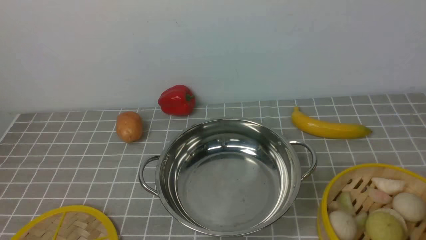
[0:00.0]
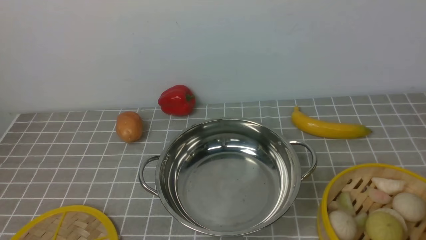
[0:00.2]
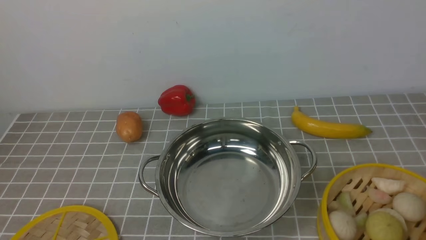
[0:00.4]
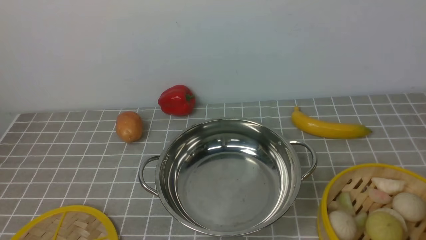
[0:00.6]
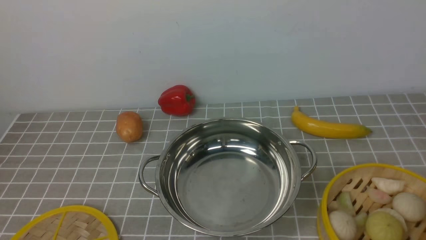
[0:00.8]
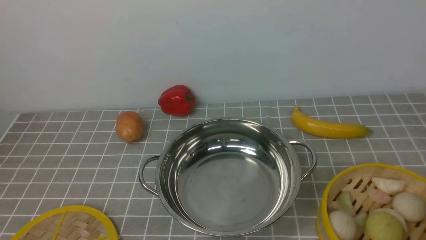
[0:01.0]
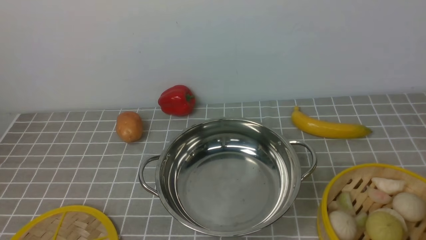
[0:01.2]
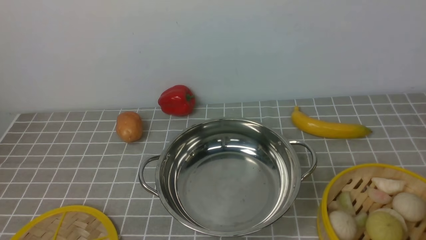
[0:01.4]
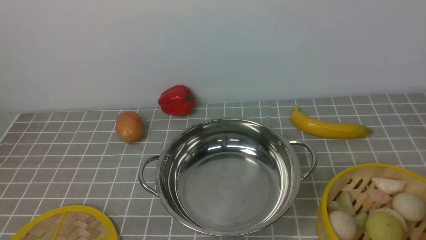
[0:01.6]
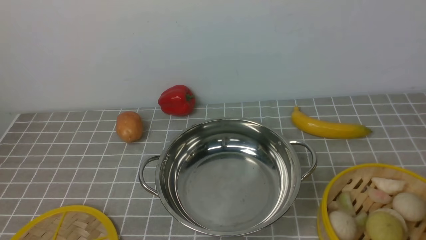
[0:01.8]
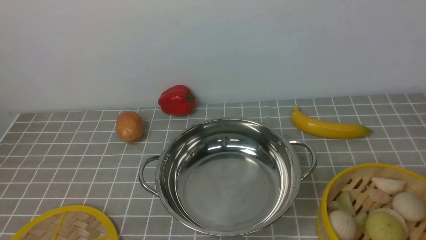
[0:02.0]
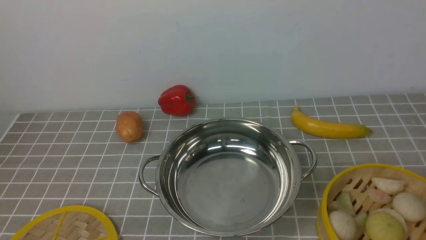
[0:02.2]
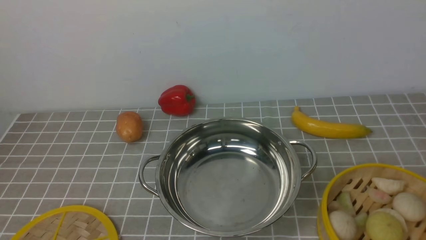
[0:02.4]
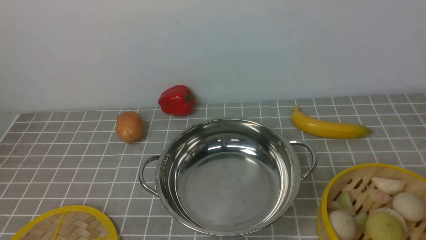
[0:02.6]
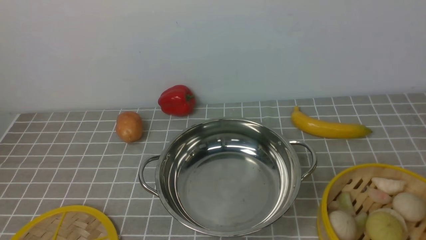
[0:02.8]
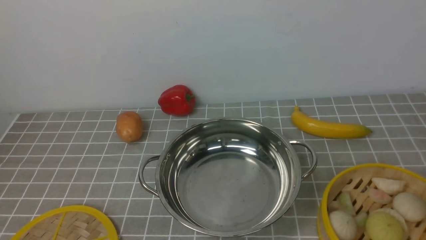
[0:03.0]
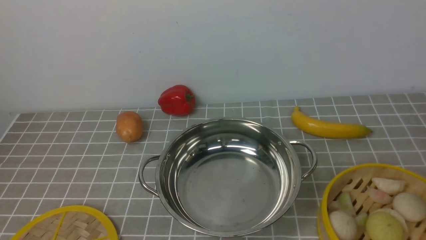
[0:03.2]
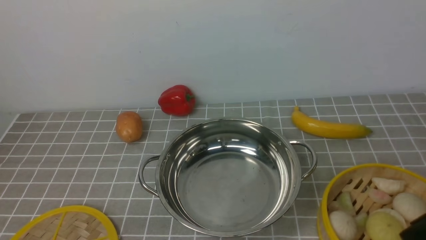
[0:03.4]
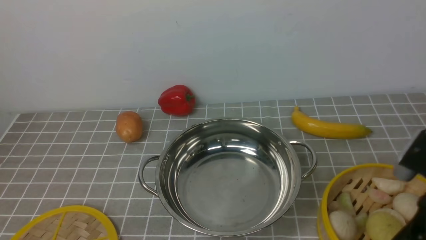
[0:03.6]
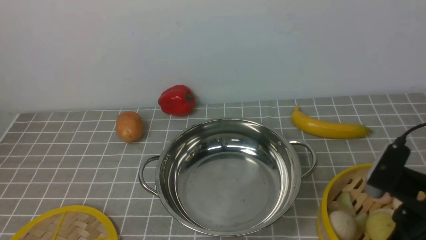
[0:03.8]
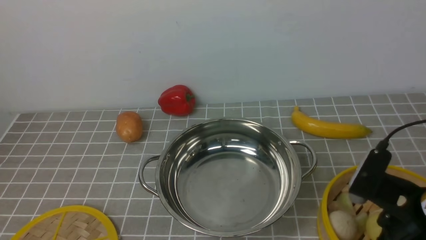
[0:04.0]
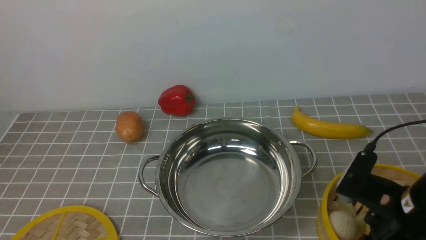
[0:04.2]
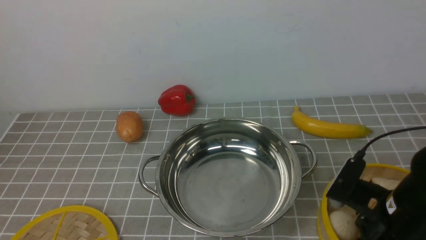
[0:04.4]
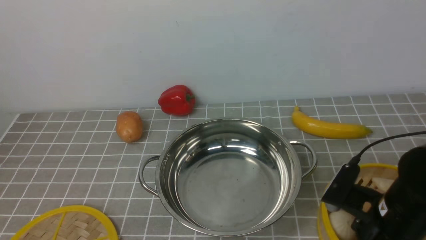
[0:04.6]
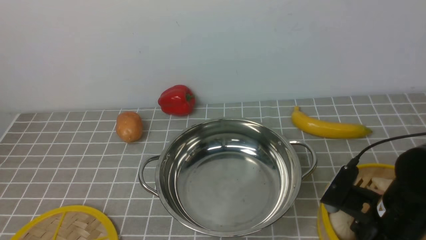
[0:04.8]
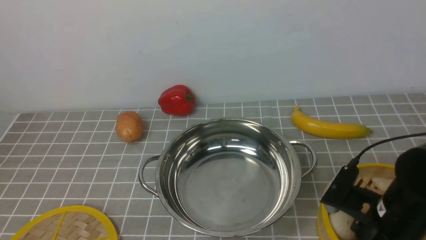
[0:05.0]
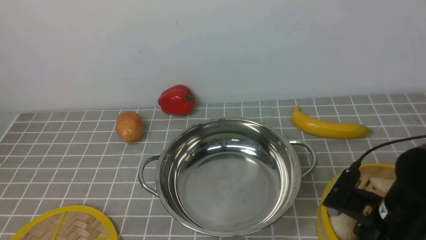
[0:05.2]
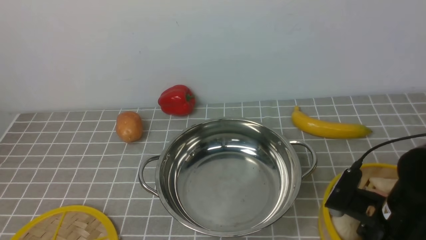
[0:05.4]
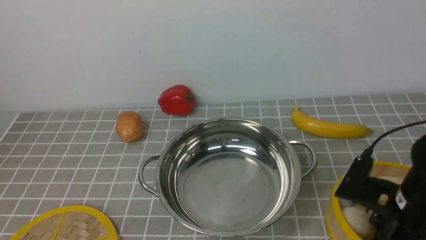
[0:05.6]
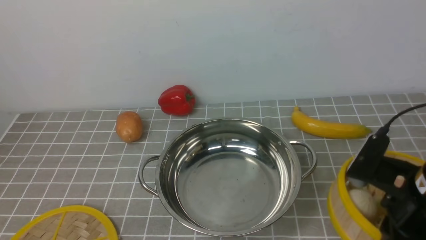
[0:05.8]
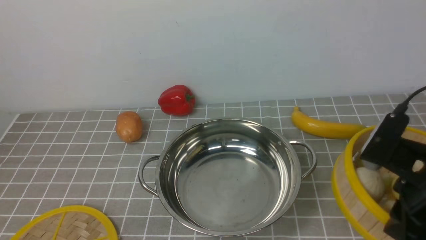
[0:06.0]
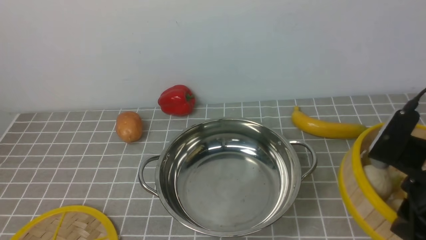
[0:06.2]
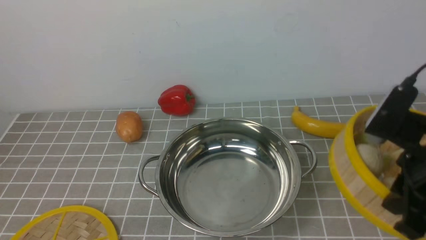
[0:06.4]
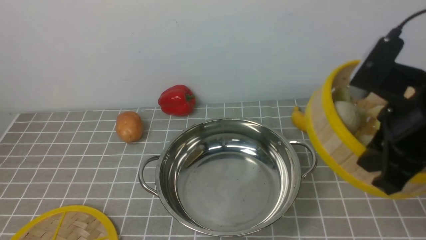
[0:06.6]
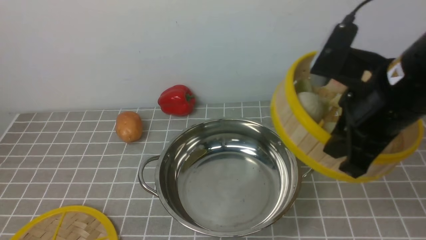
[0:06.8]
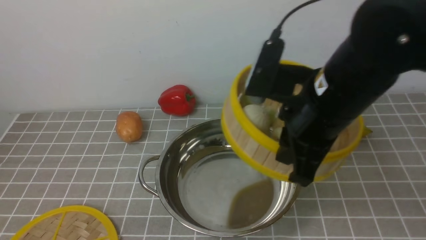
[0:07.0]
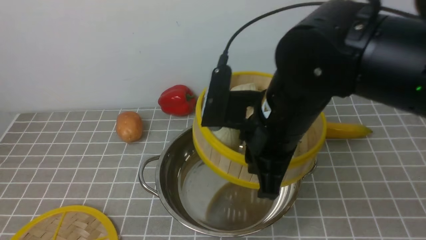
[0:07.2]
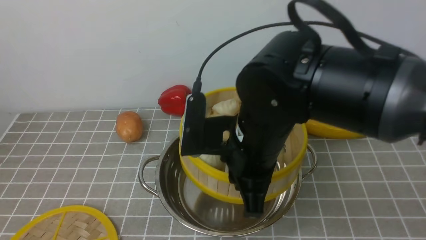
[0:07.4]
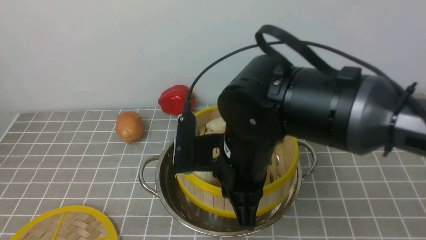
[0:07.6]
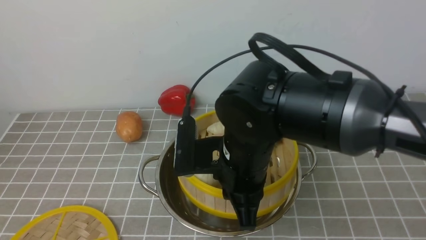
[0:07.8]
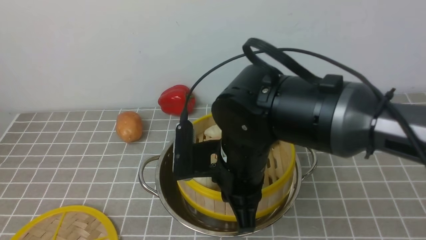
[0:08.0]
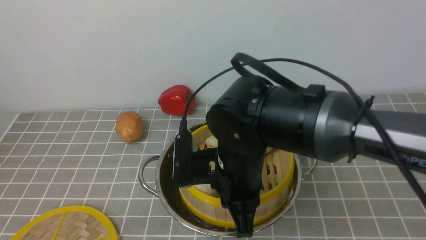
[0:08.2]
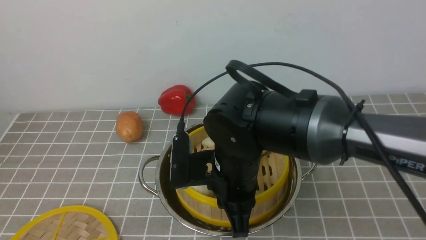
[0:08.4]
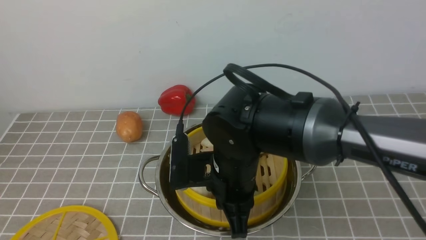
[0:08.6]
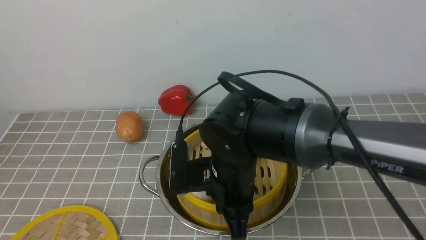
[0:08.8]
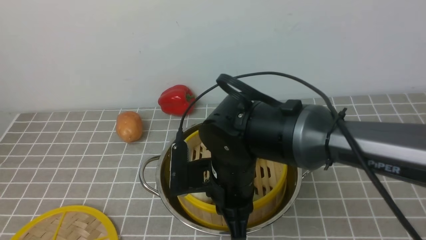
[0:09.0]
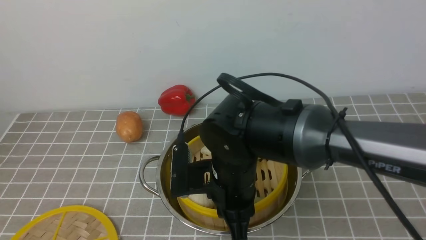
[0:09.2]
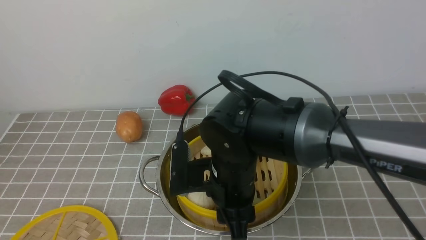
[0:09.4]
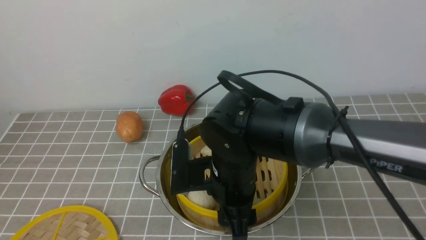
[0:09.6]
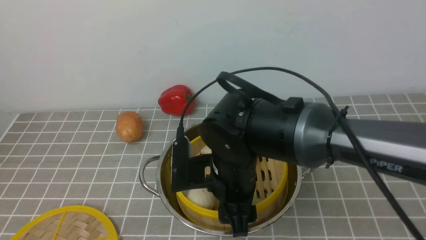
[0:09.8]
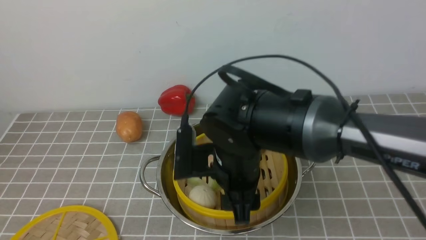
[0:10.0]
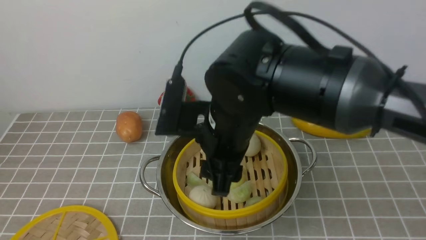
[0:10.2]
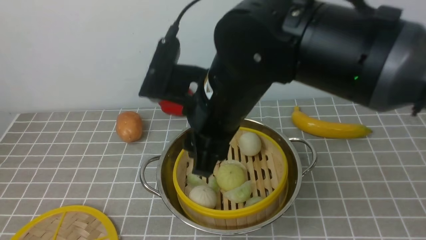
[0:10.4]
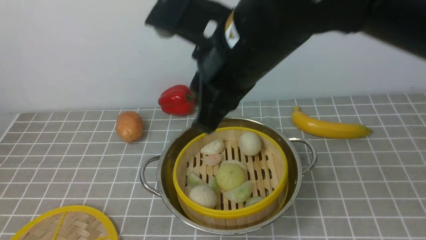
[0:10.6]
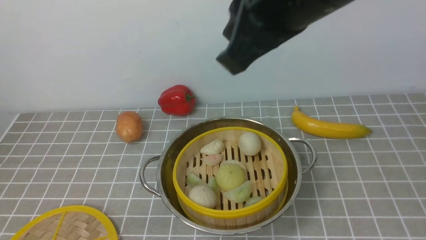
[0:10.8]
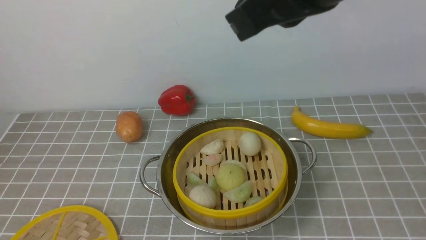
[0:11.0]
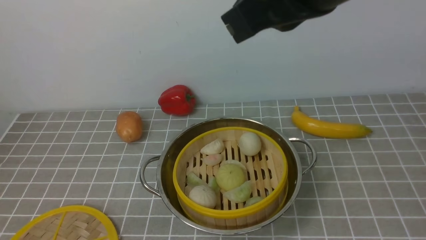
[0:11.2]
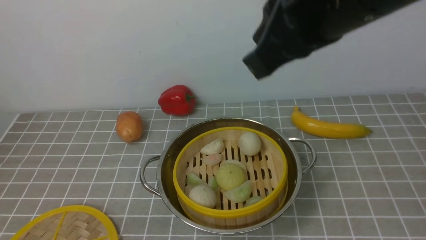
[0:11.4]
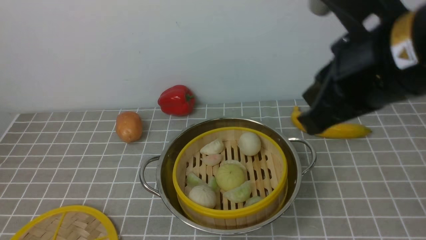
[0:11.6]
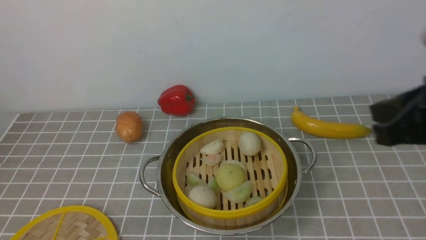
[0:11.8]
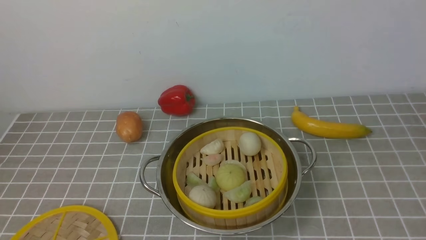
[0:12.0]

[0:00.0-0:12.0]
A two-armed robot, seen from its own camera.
Task of the whole recording: place the steamer in the pot on the grey tablecloth, and put the lid on the steamer.
Step, 0:00.0 to 0:05.6: use the right arm to lift the steamer closest to it.
Step, 0:05.8 to 0:10.0: use the right arm to put the steamer into the iron steamer pot in the middle.
0:00.0 to 0:01.6: The two grippers keep their place.
0:03.0 to 0:04.4: The right gripper shifts some 15 cm downward, to the left and forward.
0:04.4 to 0:06.0: The right gripper goes some 10 cm upward.
0:06.0 to 0:07.6: The right gripper shifts roughly 20 cm to the left.
0:07.6 to 0:09.0: The right gripper goes roughly 5 cm downward.
0:09.0 to 0:10.4: The right gripper goes roughly 15 cm upward, and opens up.
0:10.4 to 0:12.0: The right gripper heads to the right and backward, covering about 30 cm, and closes up.

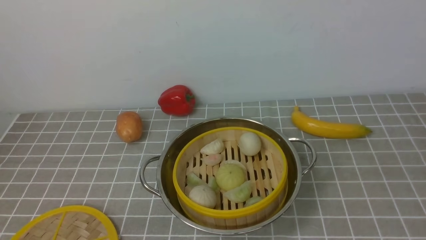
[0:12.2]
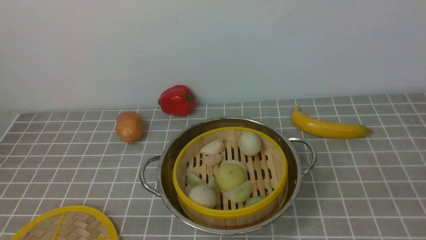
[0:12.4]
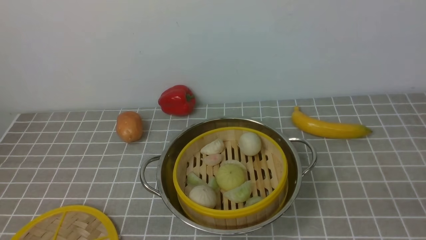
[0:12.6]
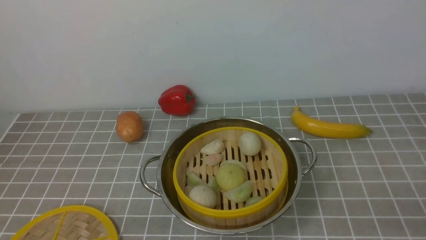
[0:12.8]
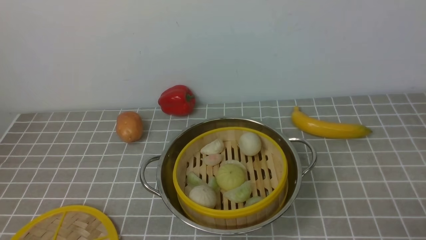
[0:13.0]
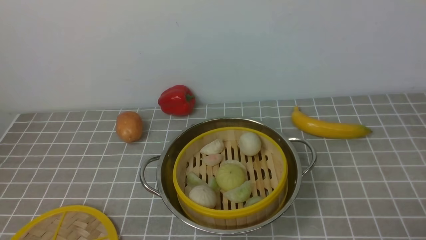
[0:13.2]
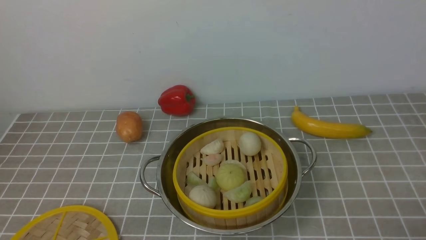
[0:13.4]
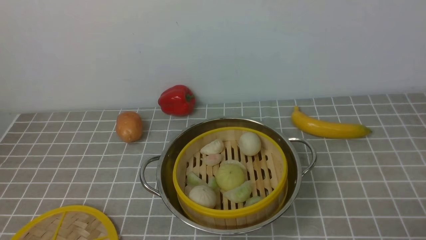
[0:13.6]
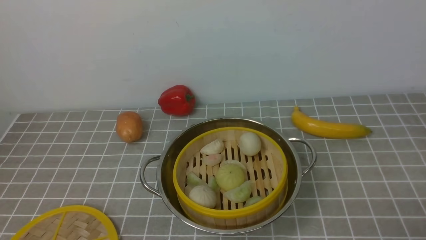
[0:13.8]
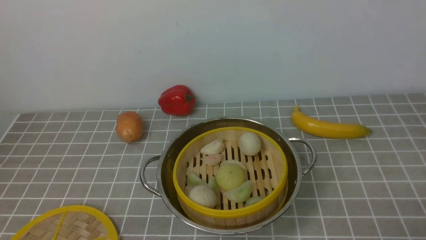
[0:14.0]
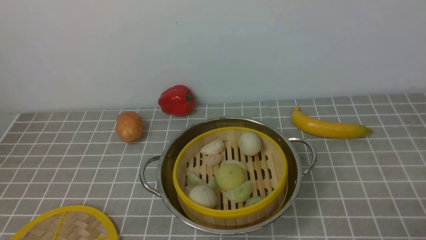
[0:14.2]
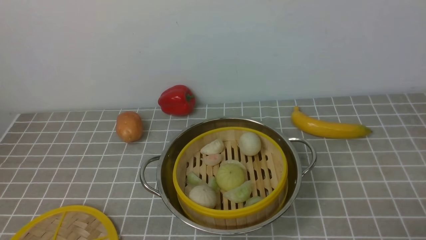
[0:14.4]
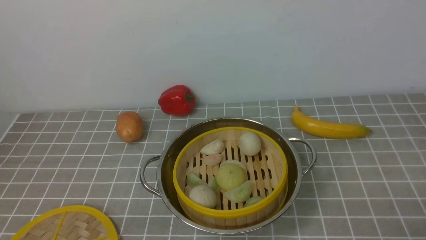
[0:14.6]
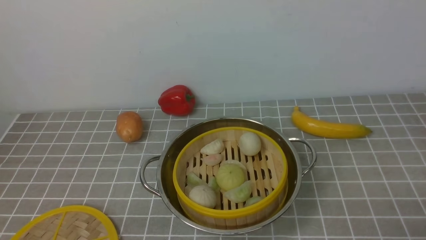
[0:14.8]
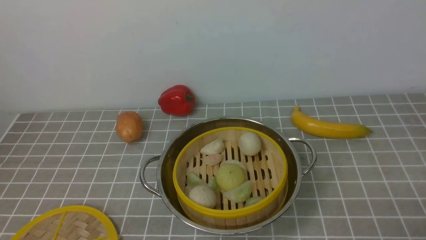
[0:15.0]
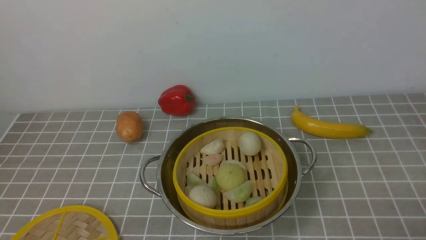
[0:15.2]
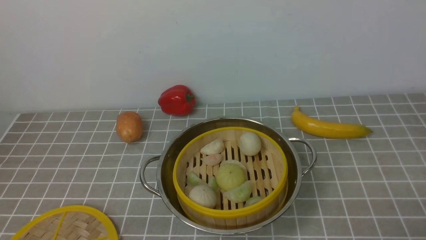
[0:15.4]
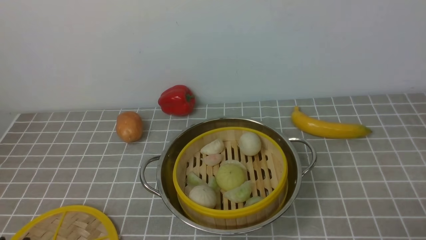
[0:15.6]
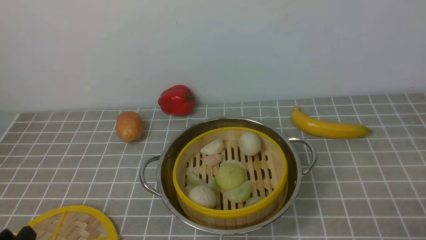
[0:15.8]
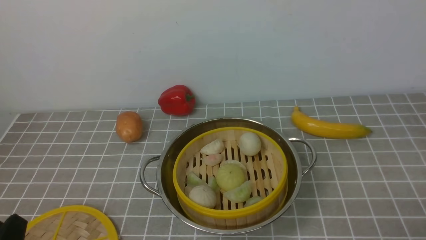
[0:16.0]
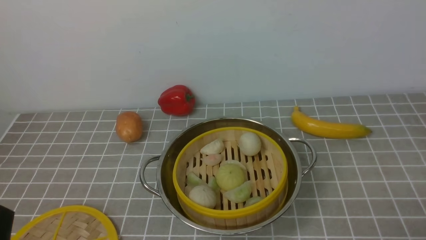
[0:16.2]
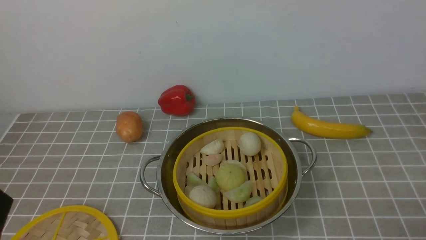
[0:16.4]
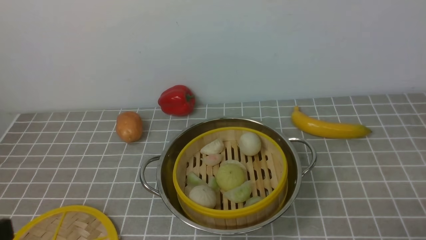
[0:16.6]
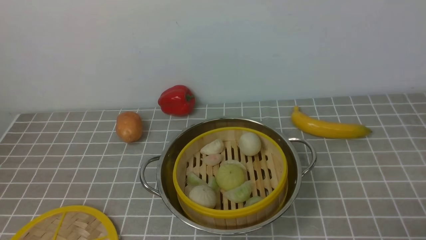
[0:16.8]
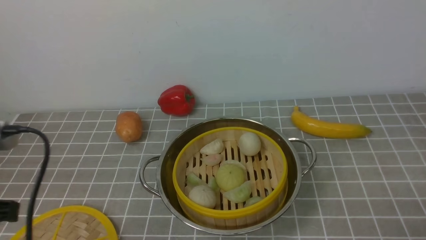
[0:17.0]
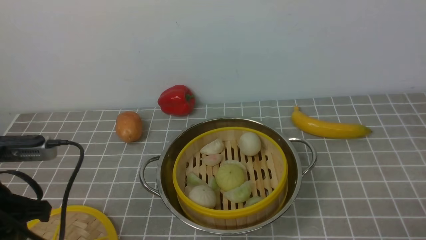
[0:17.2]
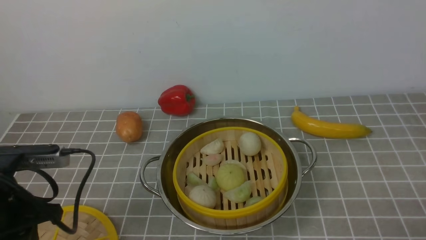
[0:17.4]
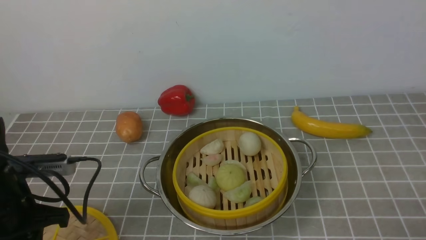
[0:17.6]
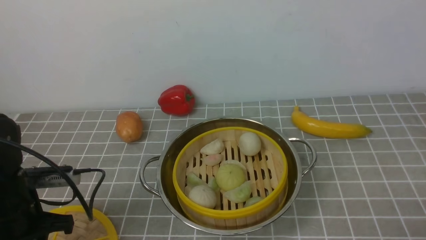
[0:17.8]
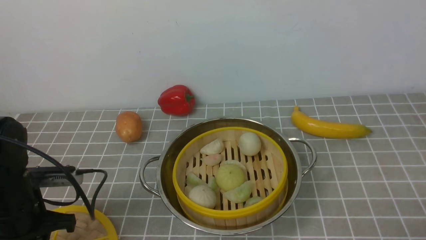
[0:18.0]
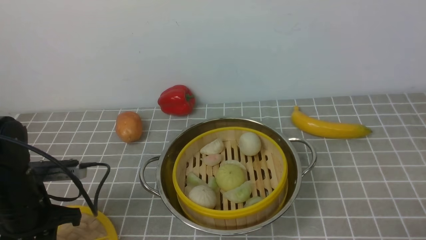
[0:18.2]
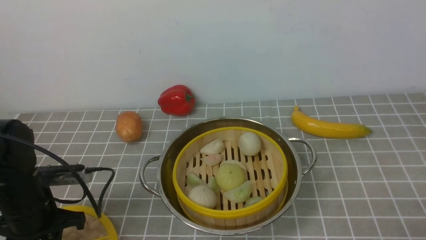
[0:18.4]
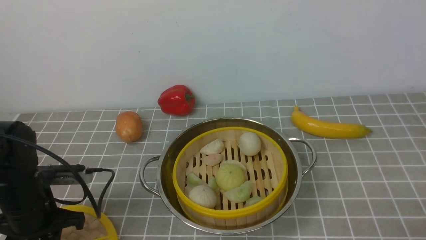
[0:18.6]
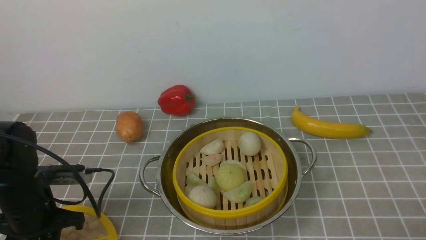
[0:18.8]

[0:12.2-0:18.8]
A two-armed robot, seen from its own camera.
Task of the whole recording: place the steamer in the pot on the grey tablecloth, and put the lid on the steamer.
0:13.8 to 0:15.4: Neither gripper changes place.
0:15.4 to 0:17.2: The left gripper shifts roughly 15 cm forward and upward.
0:17.2 to 0:18.8: The left gripper heads downward and forward, covering approximately 10 cm.
